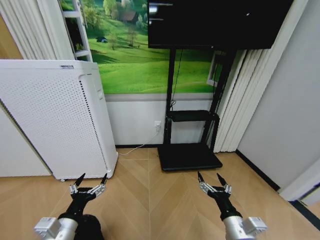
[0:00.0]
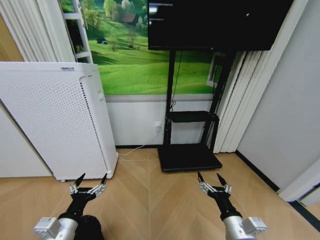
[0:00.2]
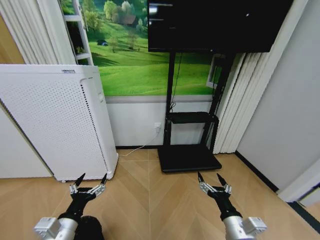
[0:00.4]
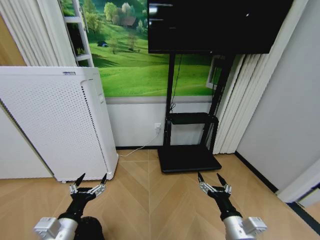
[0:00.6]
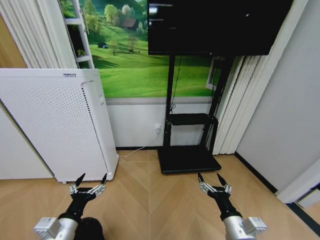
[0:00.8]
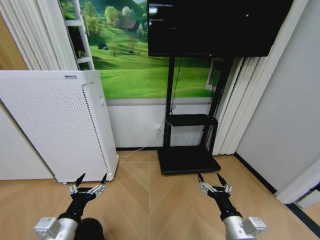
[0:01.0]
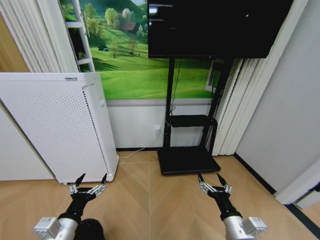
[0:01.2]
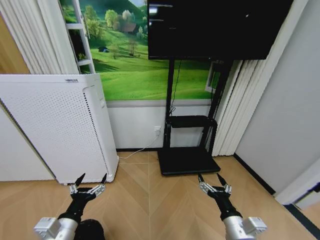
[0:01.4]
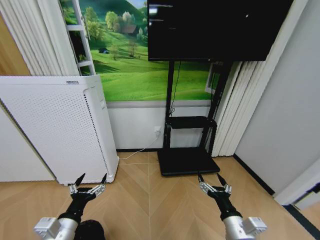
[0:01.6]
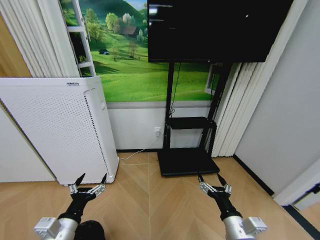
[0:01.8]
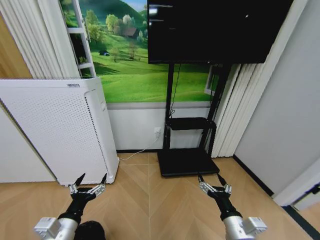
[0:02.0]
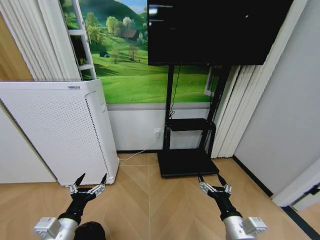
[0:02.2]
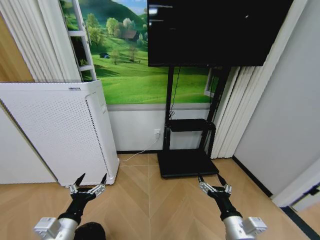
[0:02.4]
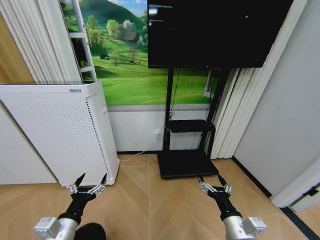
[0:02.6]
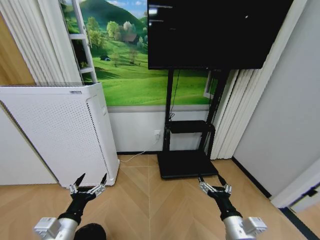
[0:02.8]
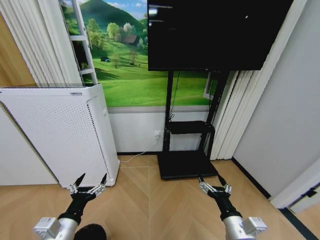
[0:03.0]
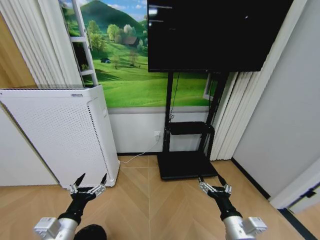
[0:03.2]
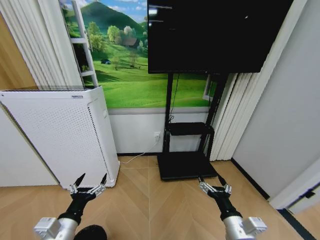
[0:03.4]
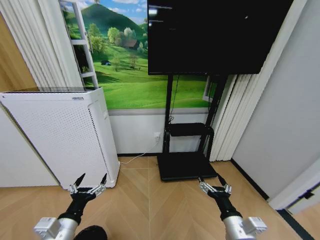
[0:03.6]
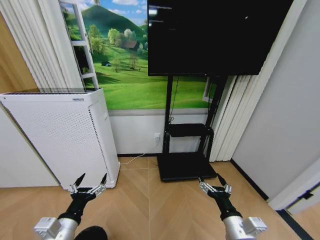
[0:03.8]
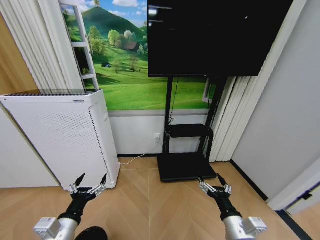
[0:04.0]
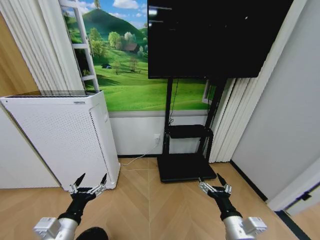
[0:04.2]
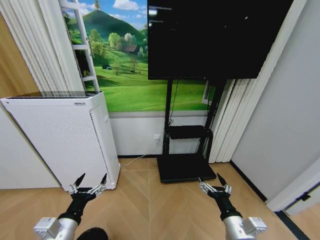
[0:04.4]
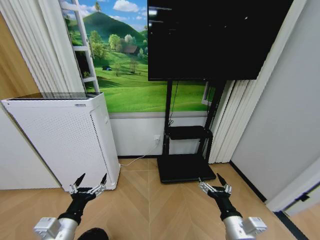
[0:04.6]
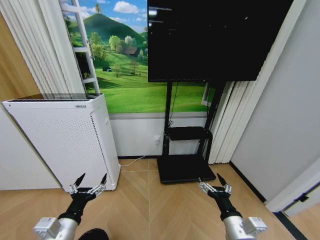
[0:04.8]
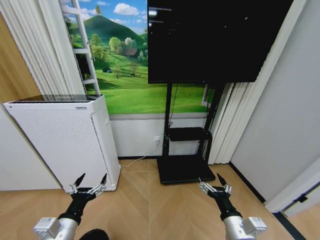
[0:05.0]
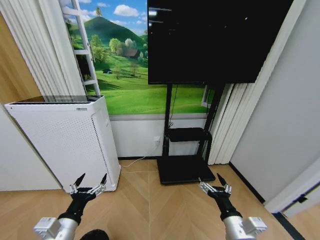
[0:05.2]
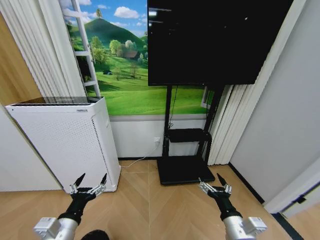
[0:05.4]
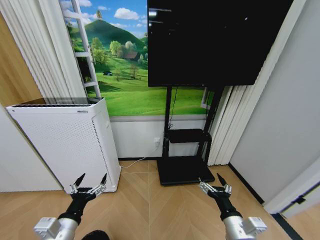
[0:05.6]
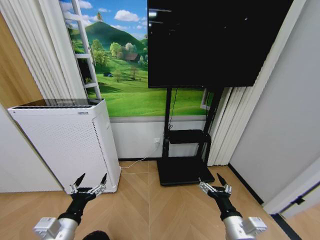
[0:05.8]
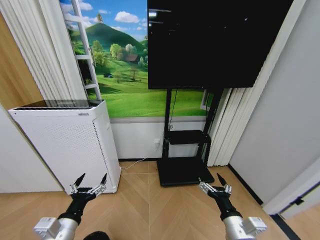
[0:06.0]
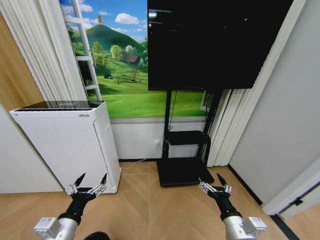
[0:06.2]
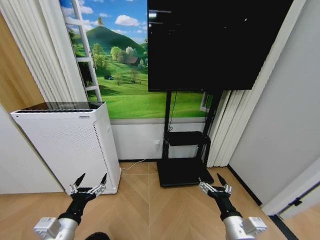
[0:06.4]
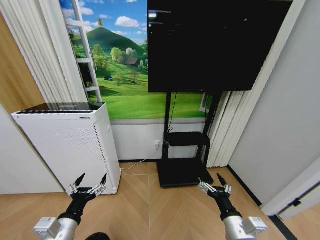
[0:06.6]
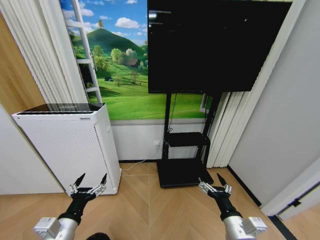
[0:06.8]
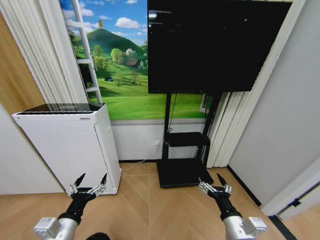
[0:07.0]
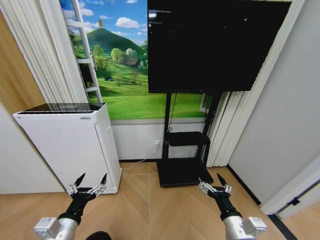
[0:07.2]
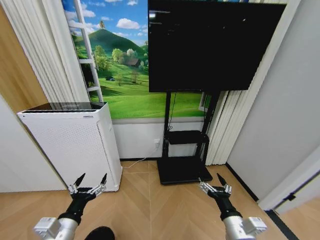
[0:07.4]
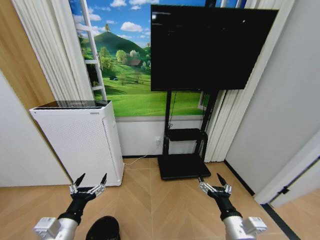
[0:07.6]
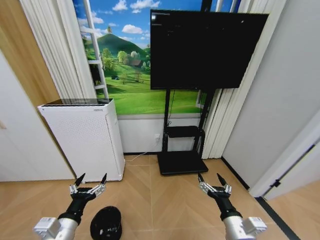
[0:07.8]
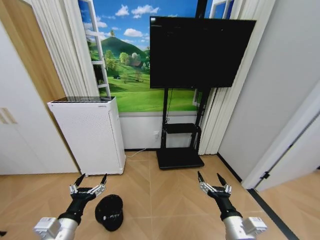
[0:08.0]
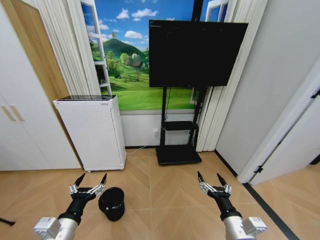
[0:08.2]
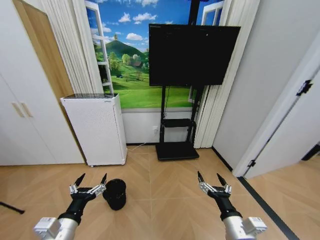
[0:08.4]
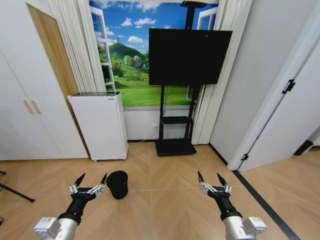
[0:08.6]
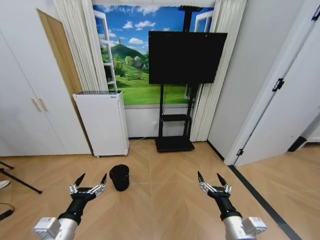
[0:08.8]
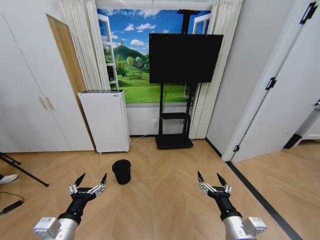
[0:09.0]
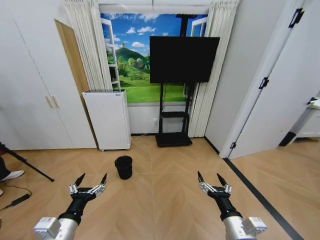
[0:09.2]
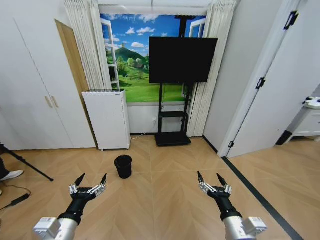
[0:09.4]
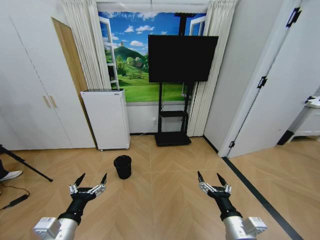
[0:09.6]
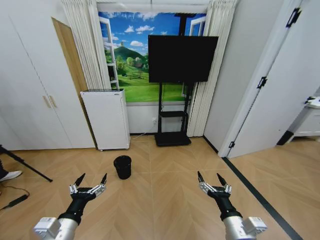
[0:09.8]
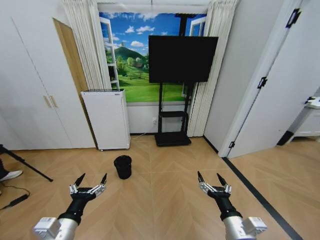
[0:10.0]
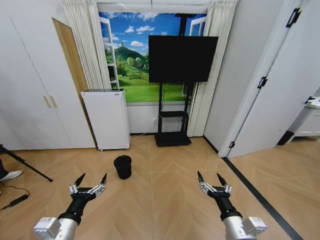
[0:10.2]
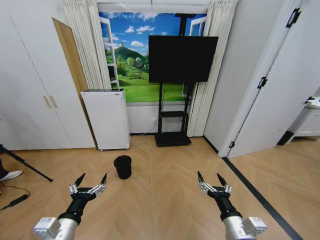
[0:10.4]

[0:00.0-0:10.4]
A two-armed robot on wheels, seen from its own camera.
Task of the whole recording: Pick up the trash bin and place the garbage on the floor into it.
0:00.0 to 0:07.4: Both grippers stay put.
0:09.0 to 0:10.4: The two grippers keep their place.

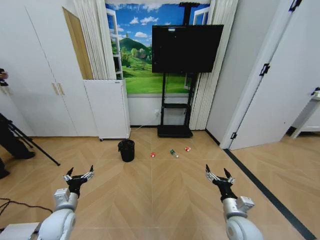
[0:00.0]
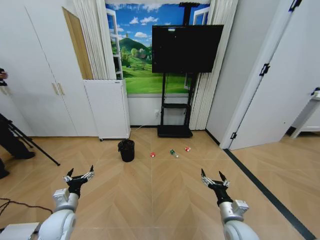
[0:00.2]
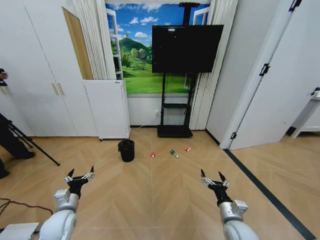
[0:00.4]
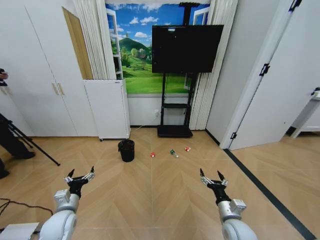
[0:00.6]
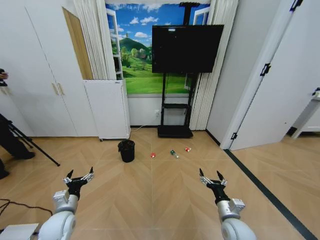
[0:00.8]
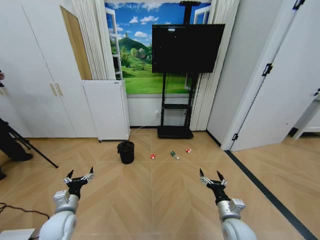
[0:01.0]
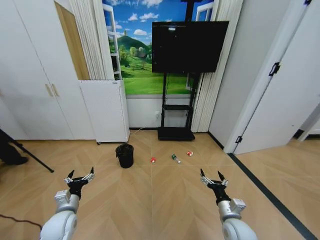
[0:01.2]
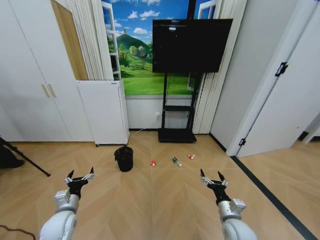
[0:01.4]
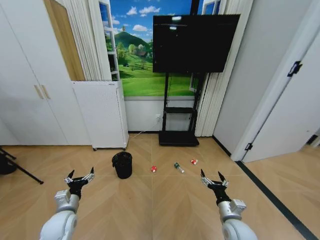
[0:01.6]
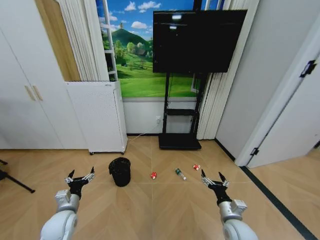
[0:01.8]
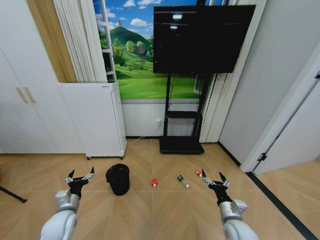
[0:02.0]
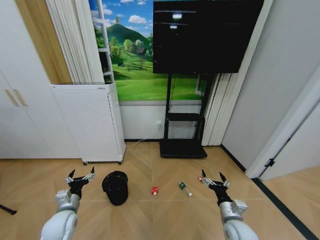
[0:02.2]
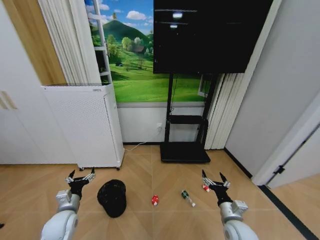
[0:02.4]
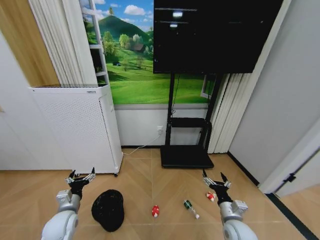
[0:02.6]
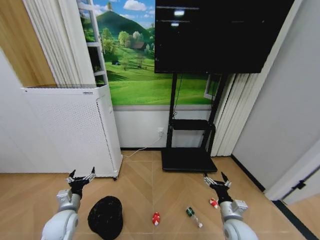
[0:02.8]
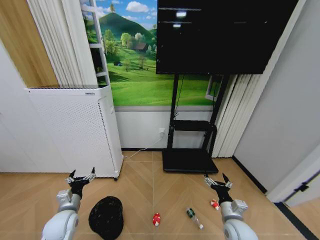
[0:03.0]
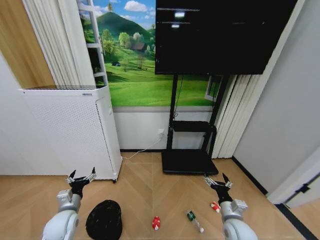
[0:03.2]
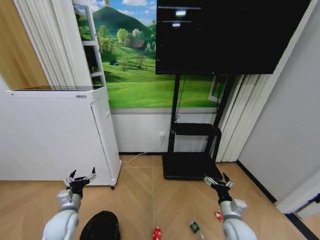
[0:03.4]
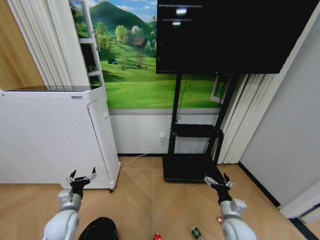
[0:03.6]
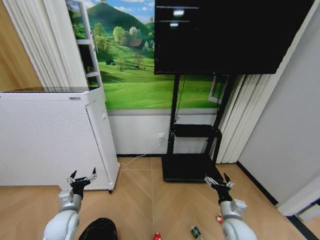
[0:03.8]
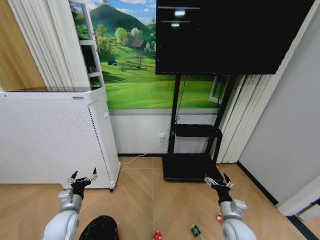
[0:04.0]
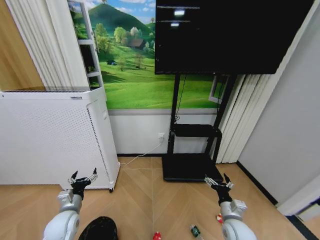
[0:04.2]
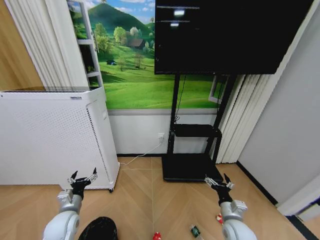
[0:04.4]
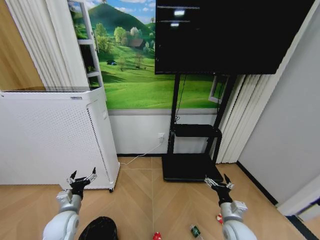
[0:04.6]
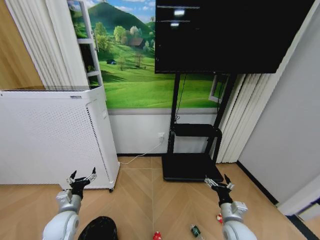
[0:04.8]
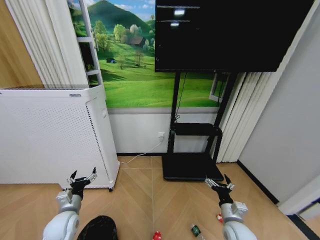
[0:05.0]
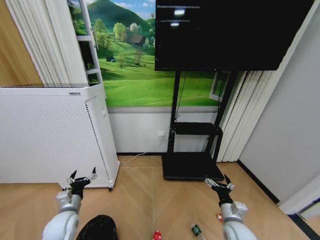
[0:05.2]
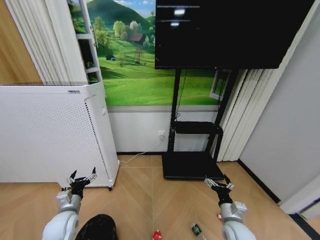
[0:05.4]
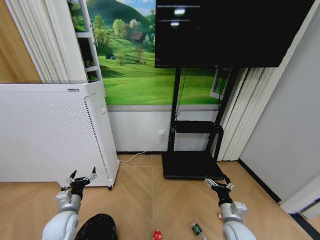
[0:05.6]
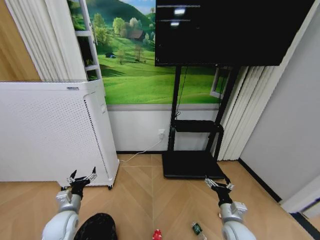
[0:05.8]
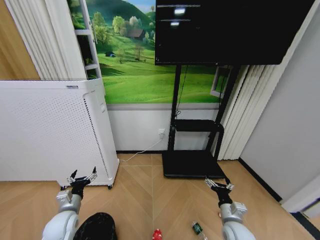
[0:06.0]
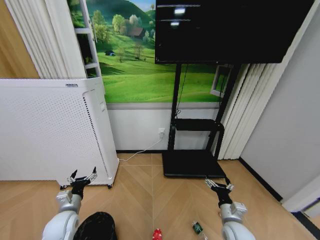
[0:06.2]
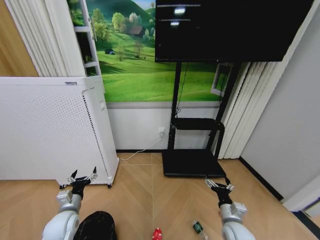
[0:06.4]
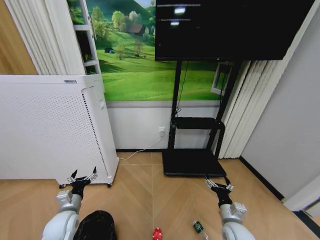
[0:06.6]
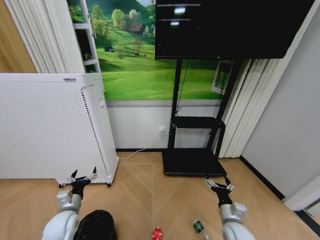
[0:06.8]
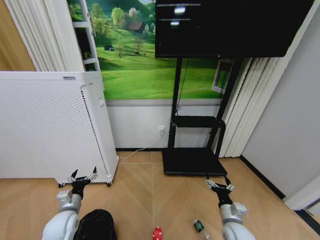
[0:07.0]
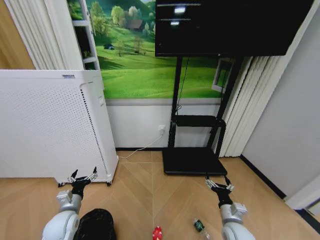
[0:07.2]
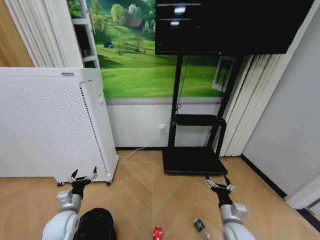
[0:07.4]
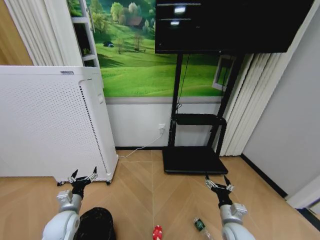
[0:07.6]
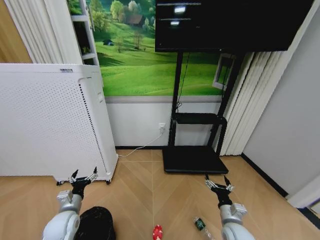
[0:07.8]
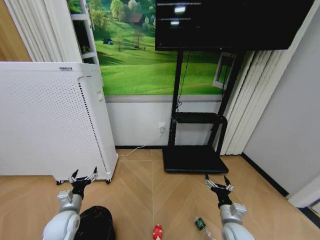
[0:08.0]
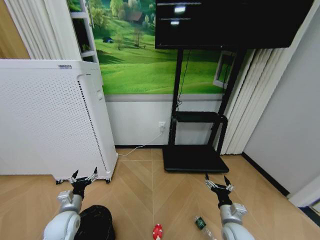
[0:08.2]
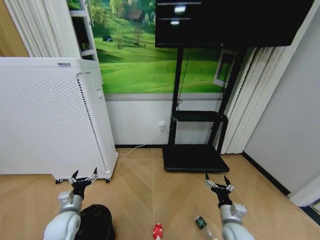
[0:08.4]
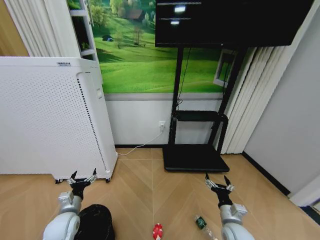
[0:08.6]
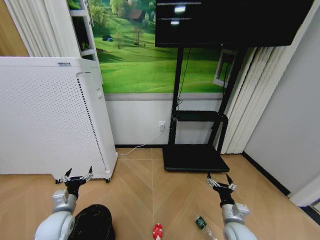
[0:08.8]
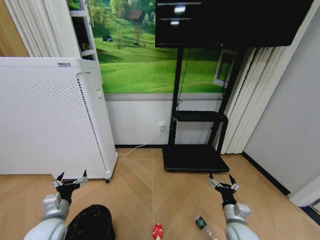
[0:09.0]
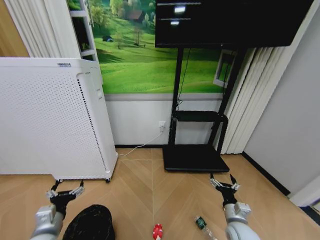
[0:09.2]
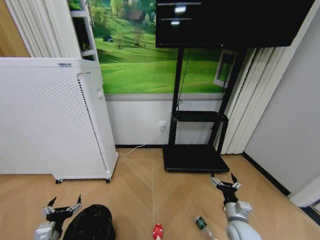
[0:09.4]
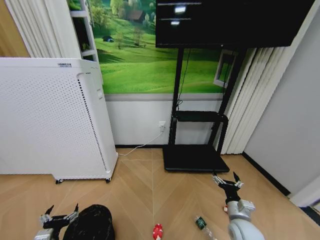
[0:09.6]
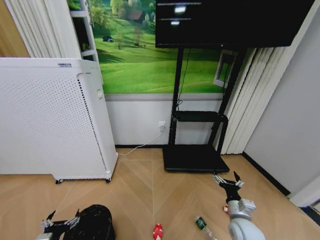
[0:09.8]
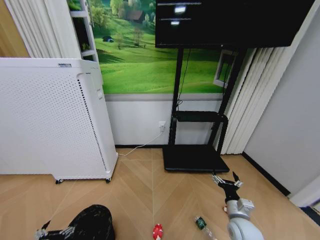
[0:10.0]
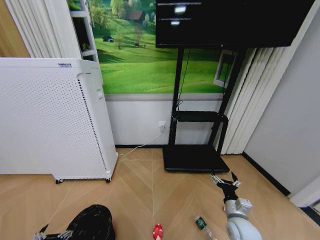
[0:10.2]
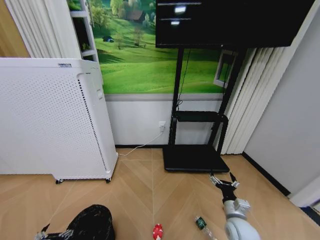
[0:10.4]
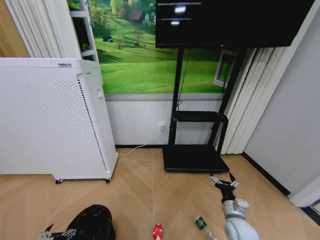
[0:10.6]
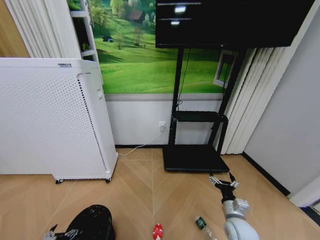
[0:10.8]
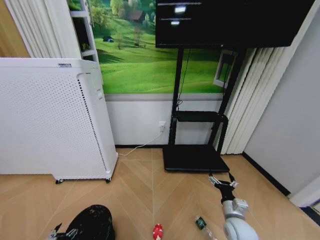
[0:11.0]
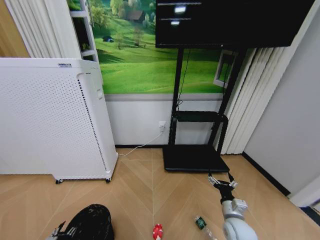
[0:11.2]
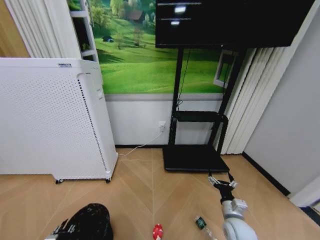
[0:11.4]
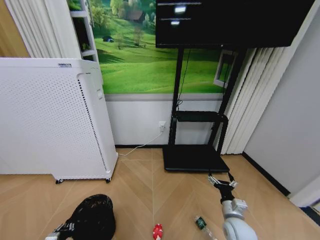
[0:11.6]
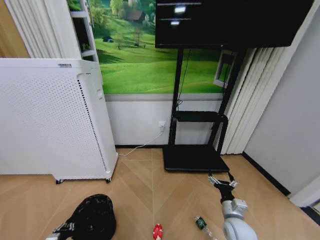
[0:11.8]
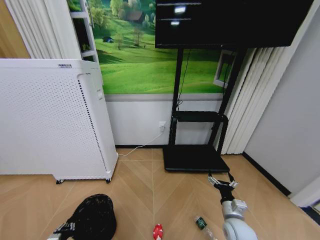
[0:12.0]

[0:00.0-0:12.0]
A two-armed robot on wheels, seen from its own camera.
Task of the whole recording: Pick up the trash bin and place the garbage on the floor into it.
0:04.4 to 0:07.6: Neither gripper changes place.
0:07.6 to 0:09.0: The left gripper changes place by about 5 cm.
0:09.0 to 0:10.4: The left gripper shifts approximately 15 cm backward and downward.
0:10.4 to 0:12.0: The left gripper heads downward, covering roughly 5 cm, and closes its fingers.
